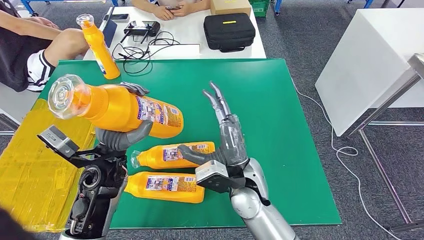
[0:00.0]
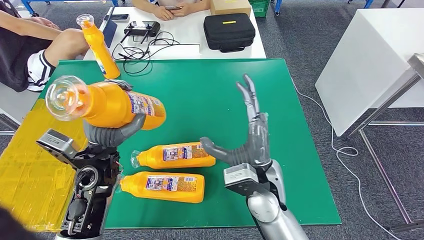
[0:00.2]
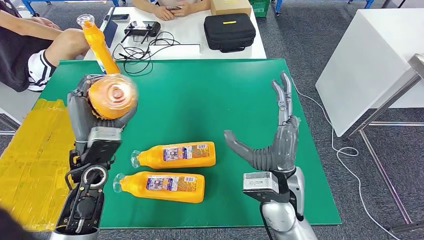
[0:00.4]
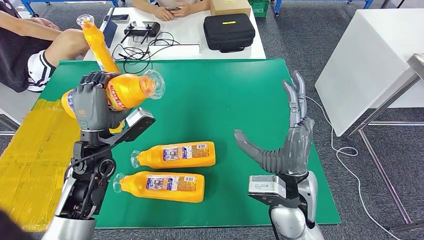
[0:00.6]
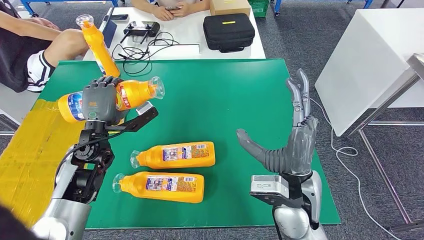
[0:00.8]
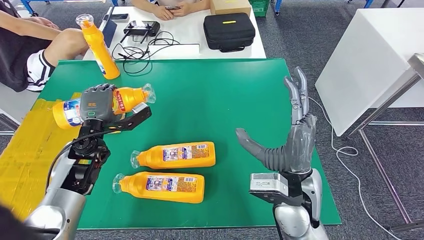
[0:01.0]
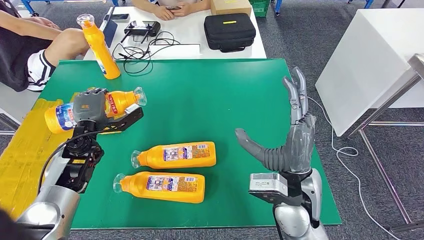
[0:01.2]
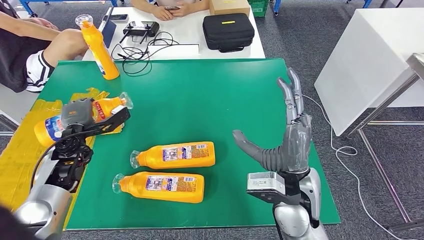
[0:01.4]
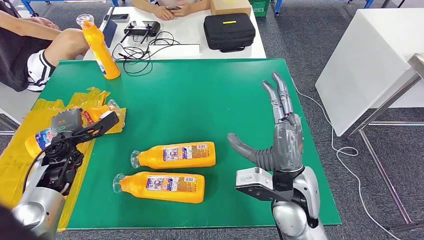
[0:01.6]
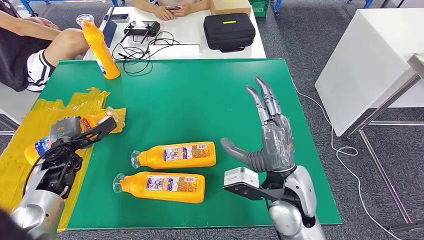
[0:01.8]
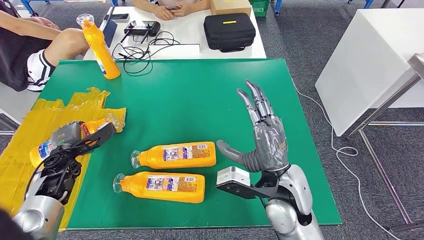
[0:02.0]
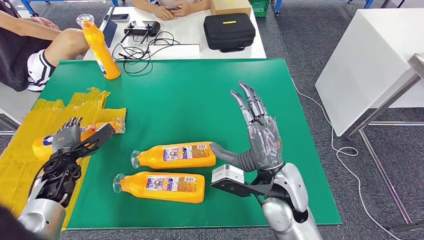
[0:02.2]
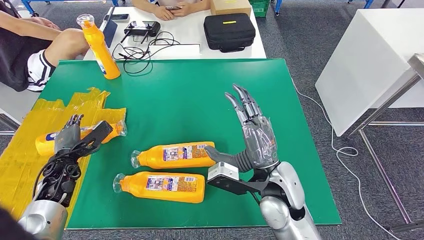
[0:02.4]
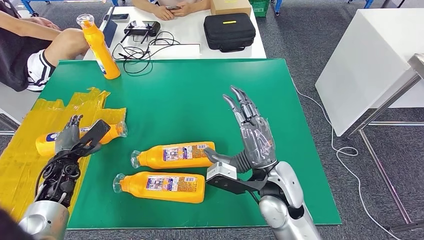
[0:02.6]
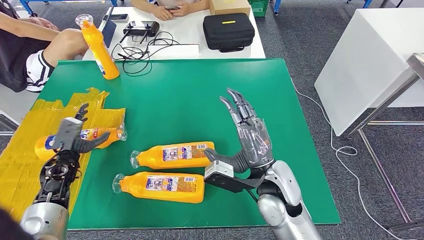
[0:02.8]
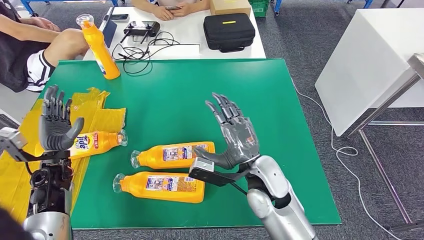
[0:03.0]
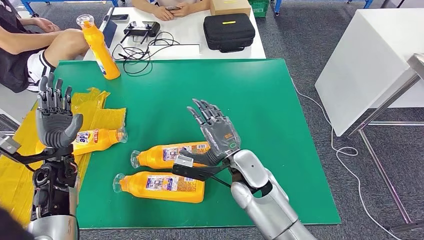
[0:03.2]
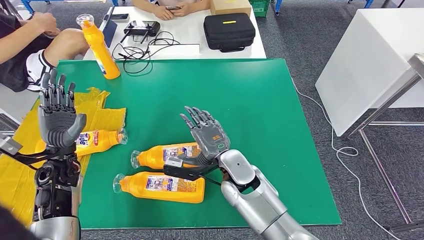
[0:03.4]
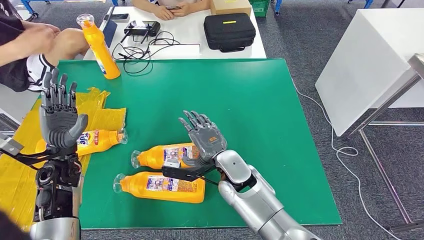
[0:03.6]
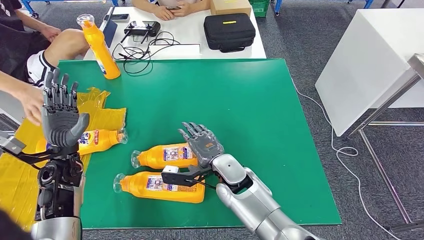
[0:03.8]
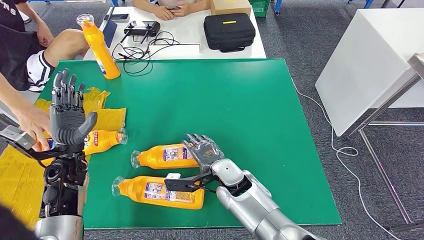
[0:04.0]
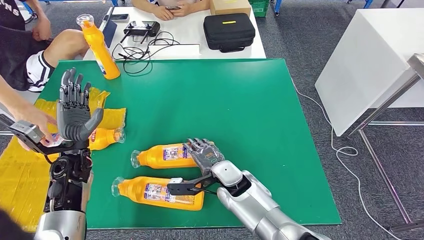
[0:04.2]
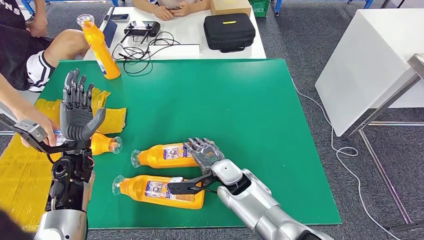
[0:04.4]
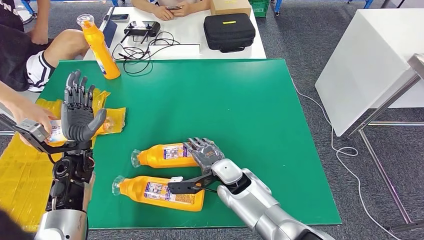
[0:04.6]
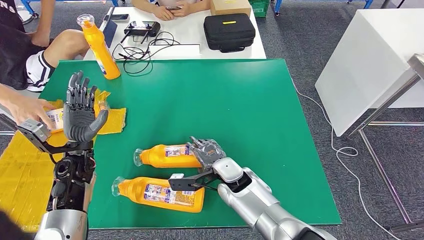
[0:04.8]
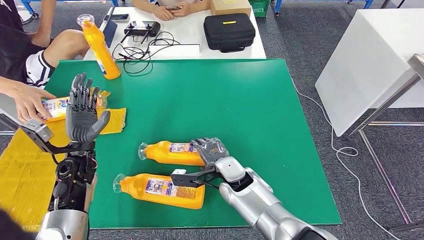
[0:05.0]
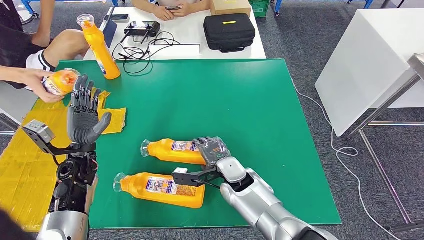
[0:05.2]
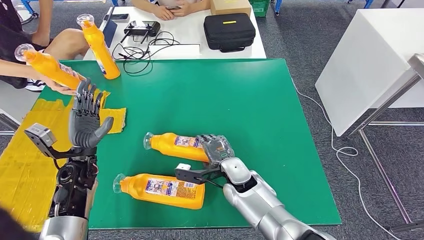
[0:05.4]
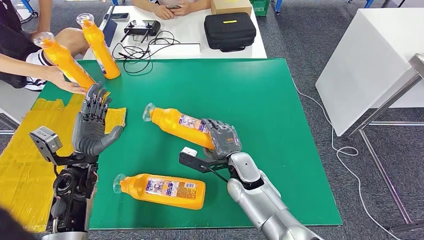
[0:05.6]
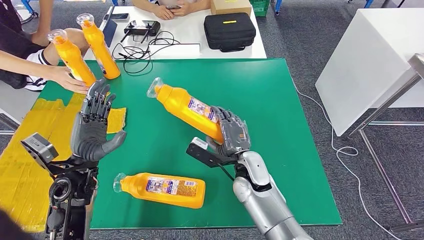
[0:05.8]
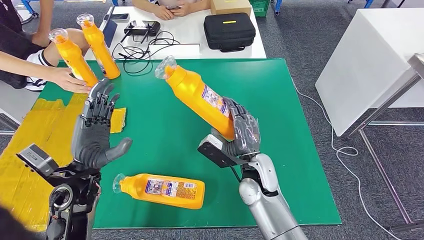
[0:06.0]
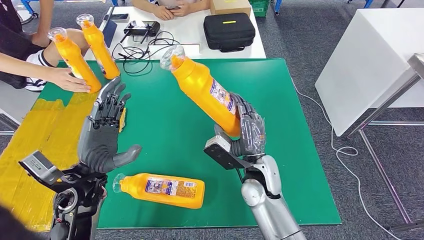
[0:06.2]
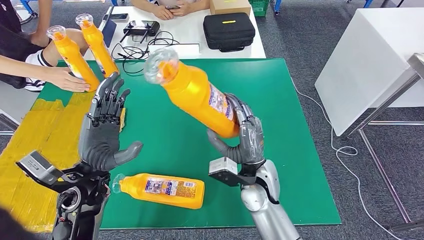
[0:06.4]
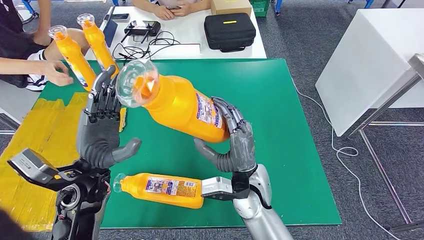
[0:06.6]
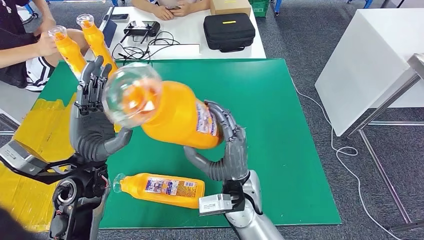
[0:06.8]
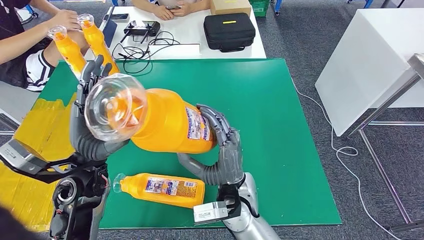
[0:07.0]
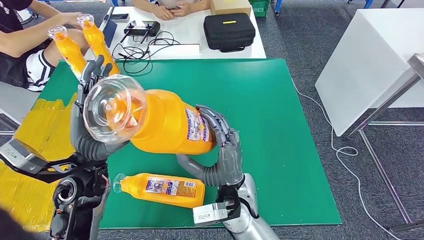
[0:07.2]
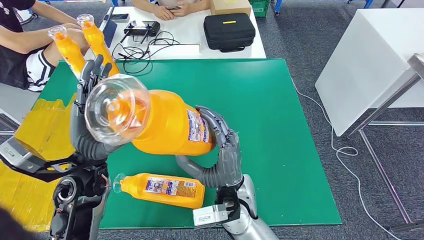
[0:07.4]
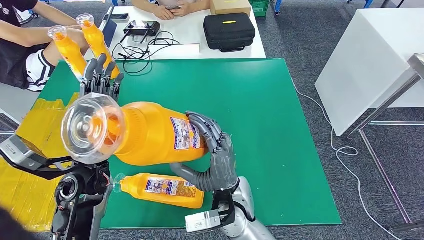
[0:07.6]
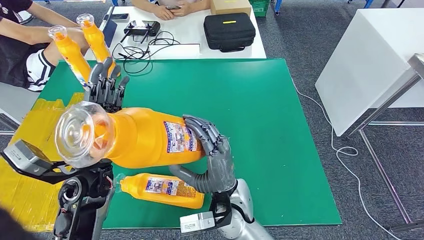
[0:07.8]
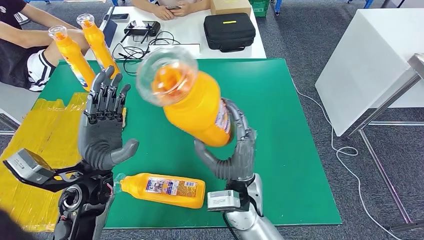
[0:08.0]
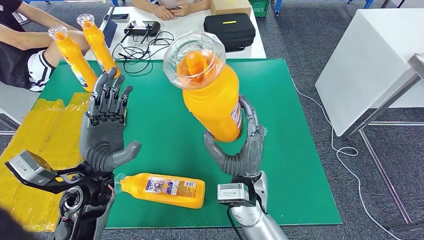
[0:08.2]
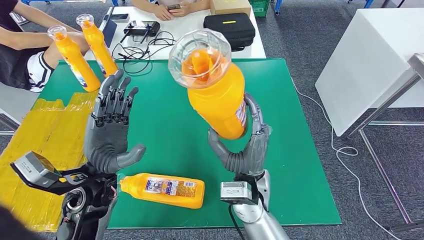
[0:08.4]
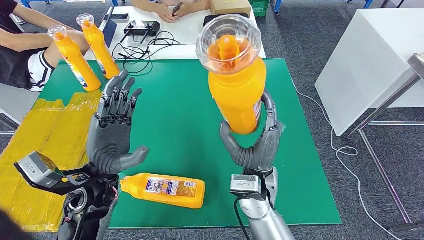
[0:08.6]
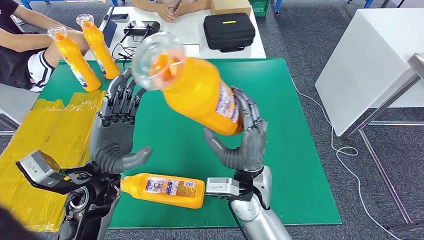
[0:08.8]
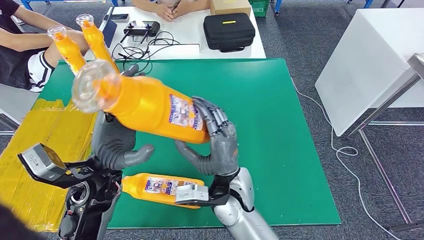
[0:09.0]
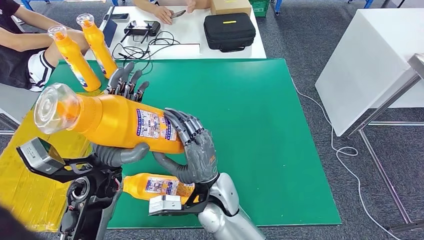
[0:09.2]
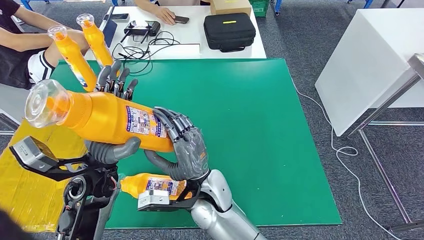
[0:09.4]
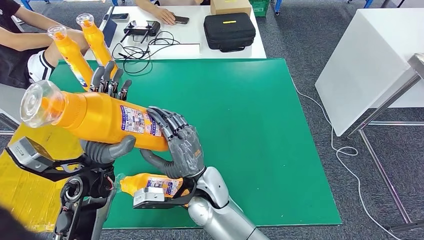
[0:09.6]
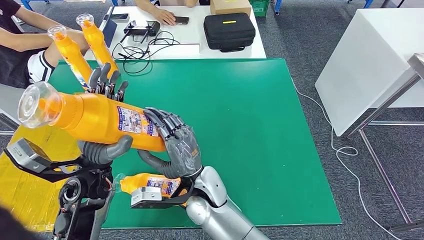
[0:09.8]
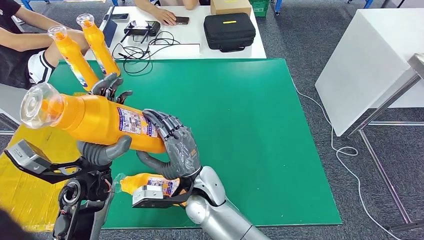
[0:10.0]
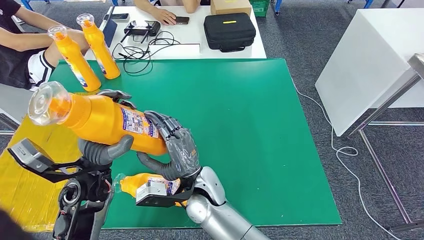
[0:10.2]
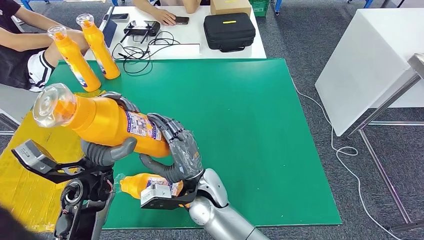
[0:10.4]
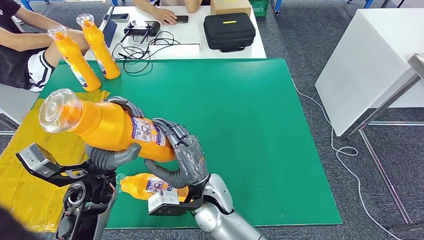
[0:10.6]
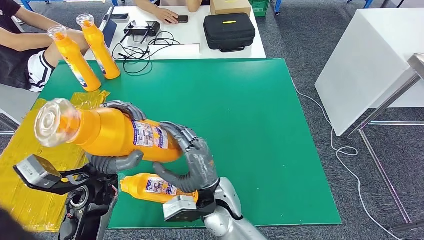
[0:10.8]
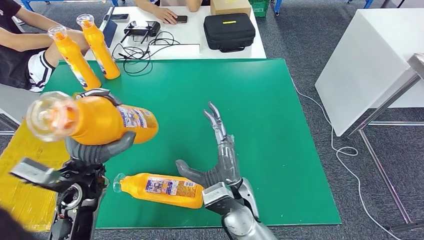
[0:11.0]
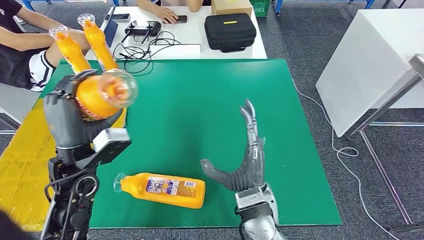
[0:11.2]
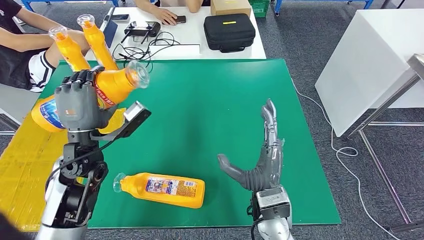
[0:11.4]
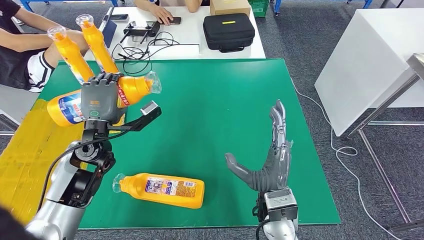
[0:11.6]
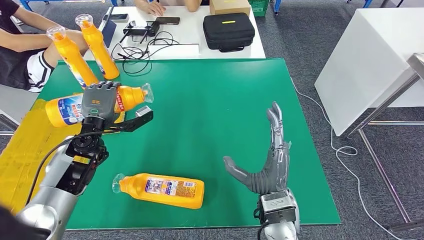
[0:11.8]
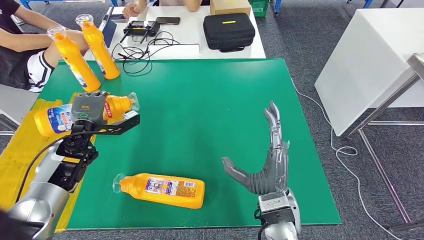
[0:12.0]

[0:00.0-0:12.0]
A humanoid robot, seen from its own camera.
Step, 0:00.0 to 0:02.6: Flip the fast-moving consumer goods bottle to the front side.
Step, 0:02.8 to 0:07.4: Pick up the fast-moving consumer goods bottle from the table.
0:01.6 to 0:03.0: The right hand shifts by roughly 5 cm.

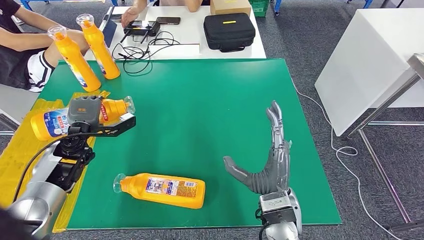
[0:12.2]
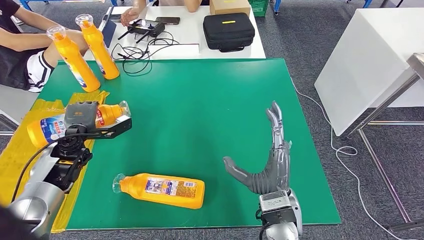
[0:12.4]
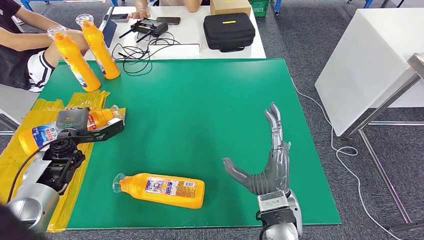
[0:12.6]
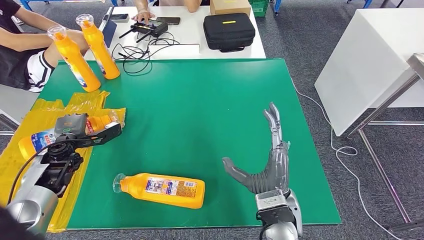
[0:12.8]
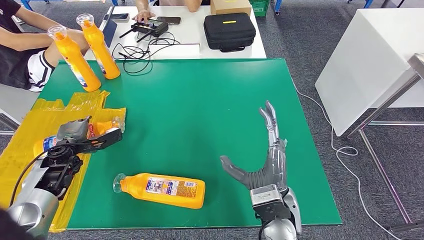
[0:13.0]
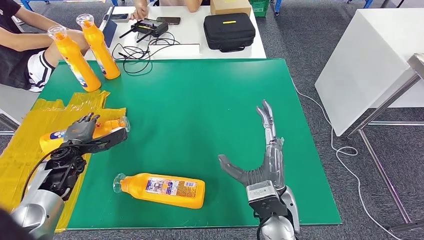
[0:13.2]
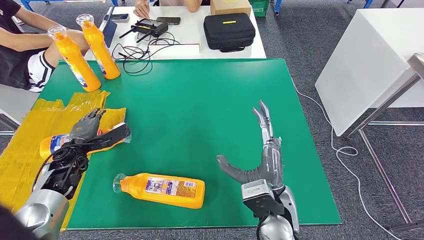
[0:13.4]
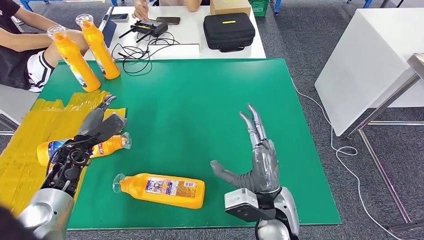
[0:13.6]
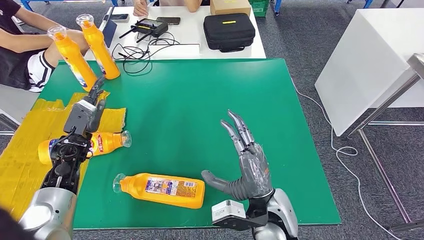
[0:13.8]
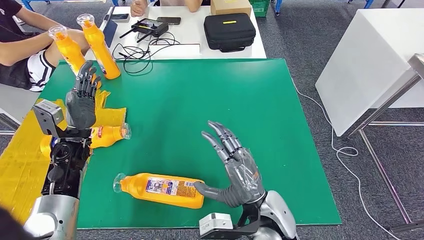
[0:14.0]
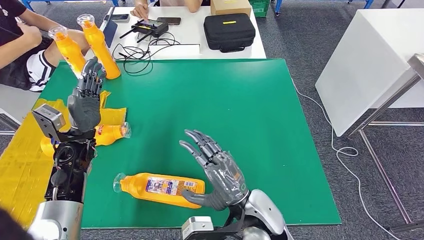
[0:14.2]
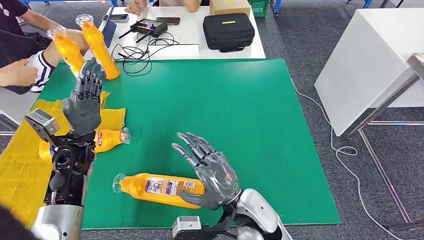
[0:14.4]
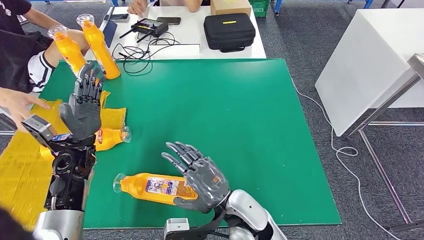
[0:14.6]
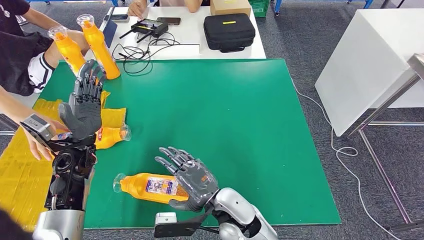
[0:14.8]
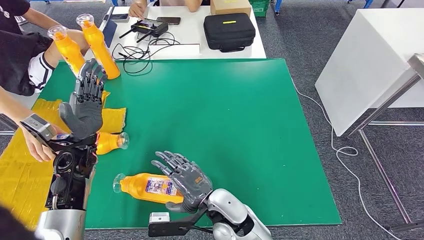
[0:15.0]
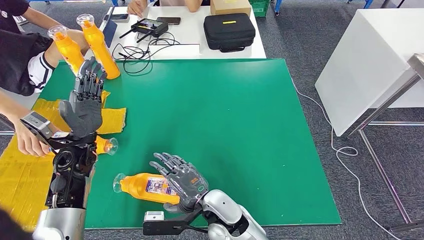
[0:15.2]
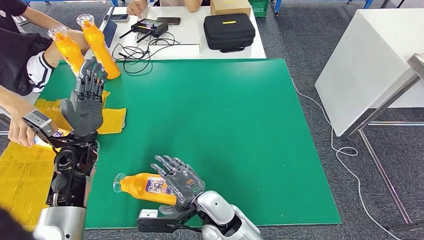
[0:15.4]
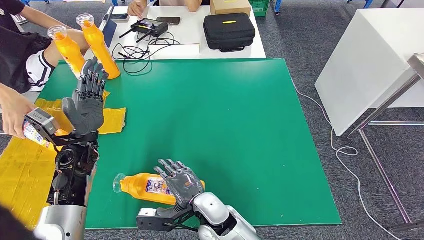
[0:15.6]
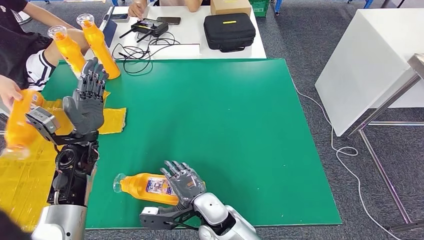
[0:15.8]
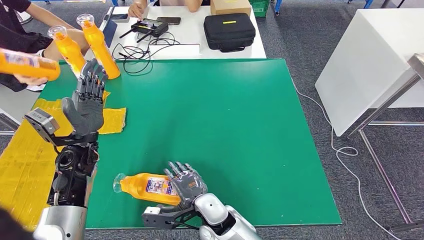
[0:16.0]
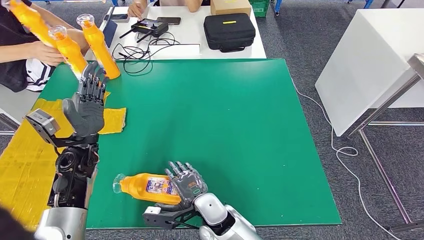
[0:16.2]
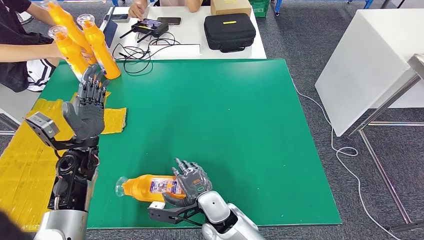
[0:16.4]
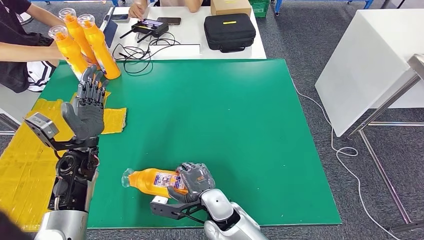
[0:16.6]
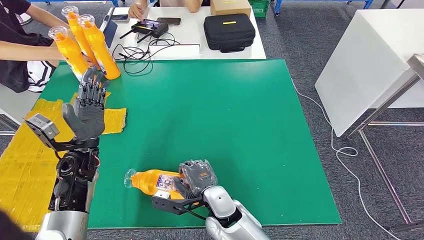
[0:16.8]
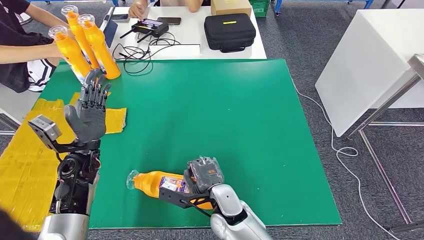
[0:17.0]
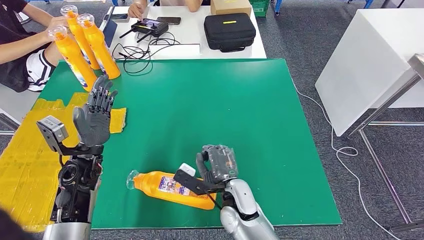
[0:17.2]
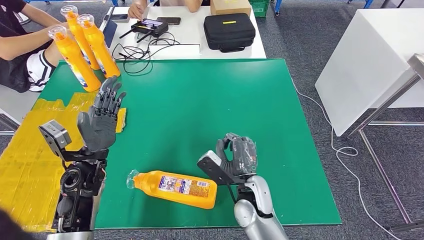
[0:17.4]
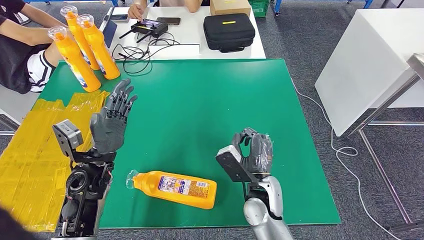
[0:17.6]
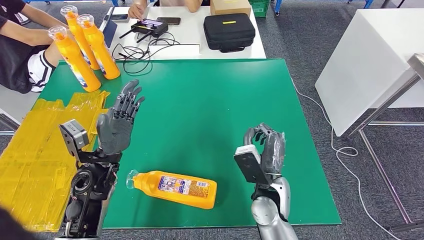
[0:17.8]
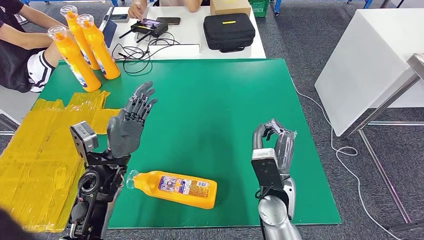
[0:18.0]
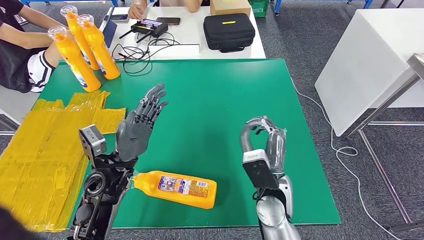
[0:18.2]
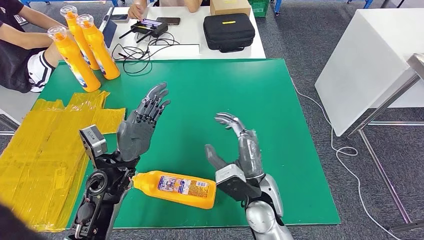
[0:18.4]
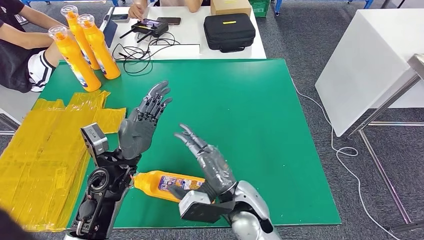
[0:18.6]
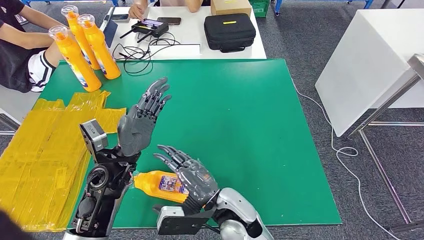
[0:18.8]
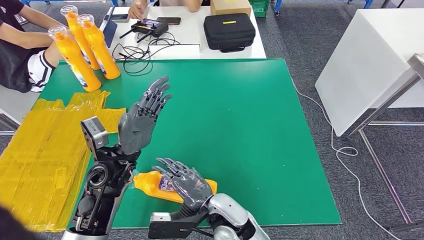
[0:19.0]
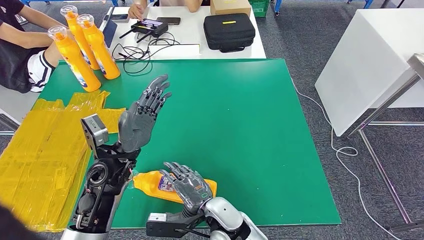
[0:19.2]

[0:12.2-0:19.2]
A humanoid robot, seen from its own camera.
0:13.6 to 0:15.0: The right hand heads to the left and downward, covering about 10 cm; the left hand heads to the right and upward, covering roughly 10 cm.
0:17.8 to 0:19.2: The right hand moves to the left, about 10 cm.
